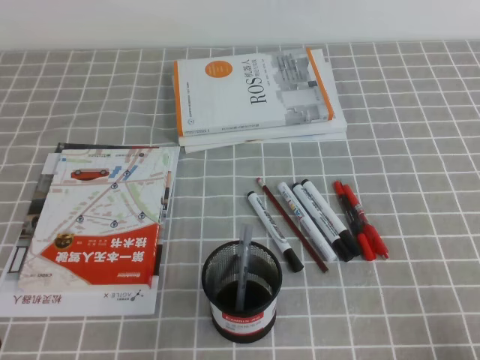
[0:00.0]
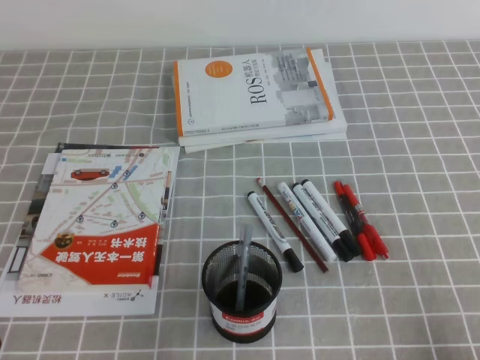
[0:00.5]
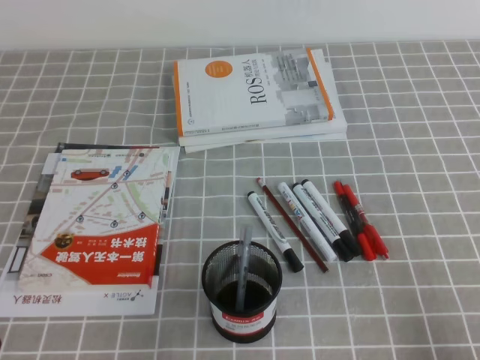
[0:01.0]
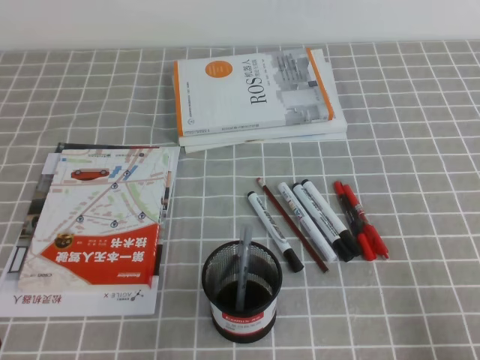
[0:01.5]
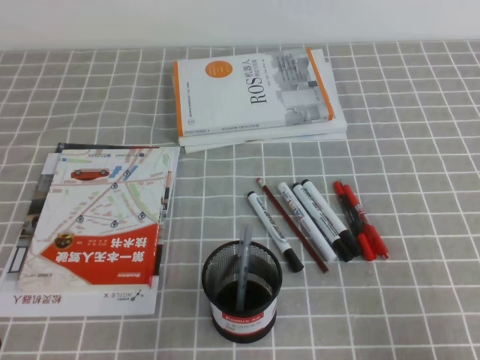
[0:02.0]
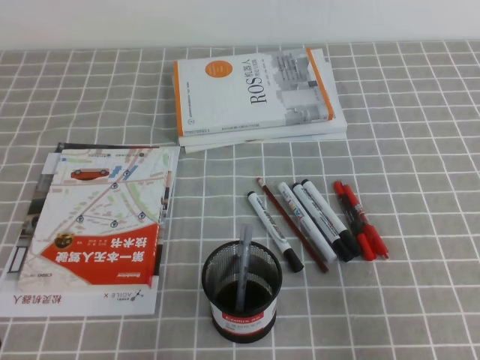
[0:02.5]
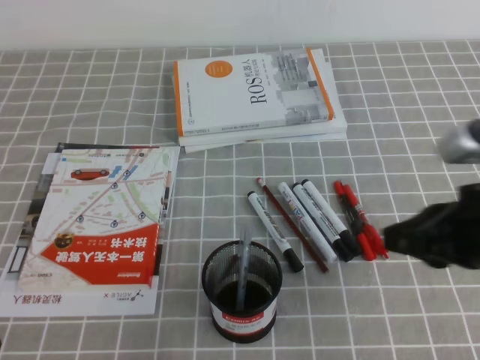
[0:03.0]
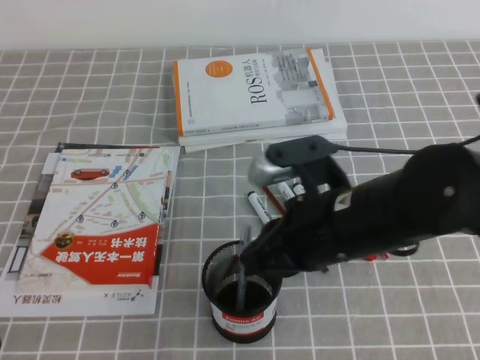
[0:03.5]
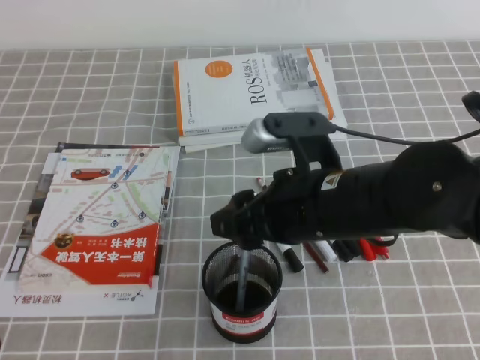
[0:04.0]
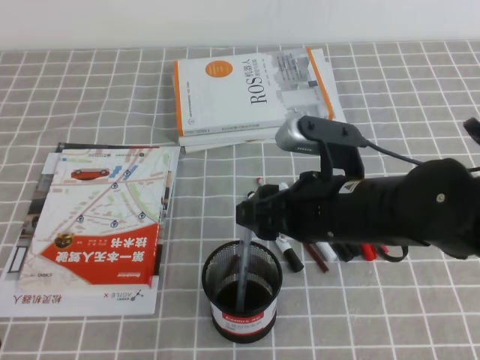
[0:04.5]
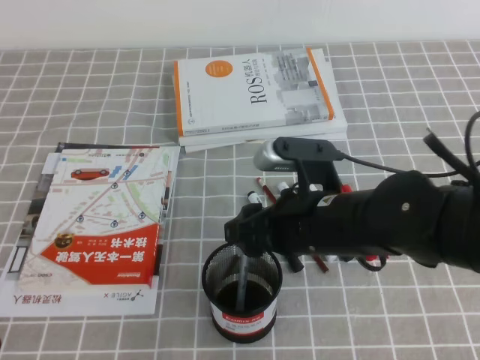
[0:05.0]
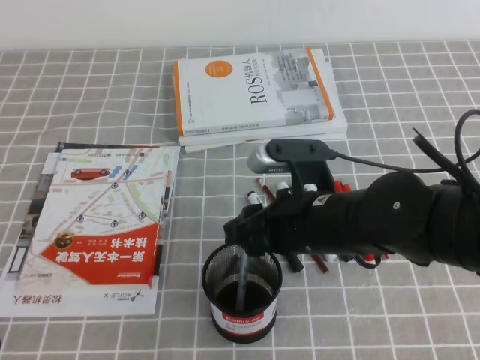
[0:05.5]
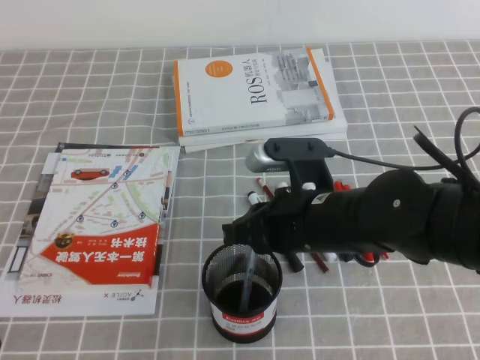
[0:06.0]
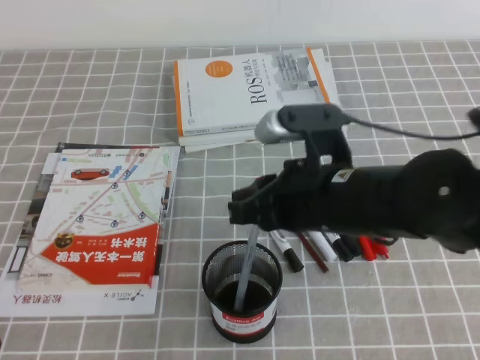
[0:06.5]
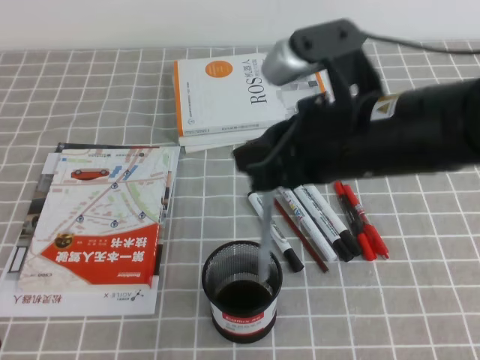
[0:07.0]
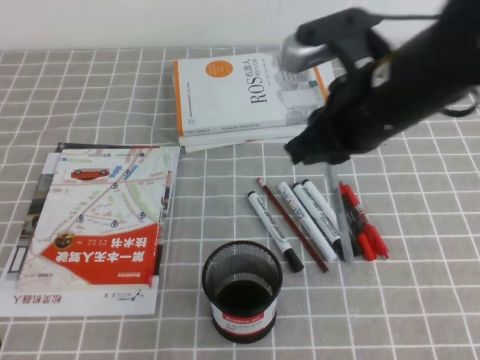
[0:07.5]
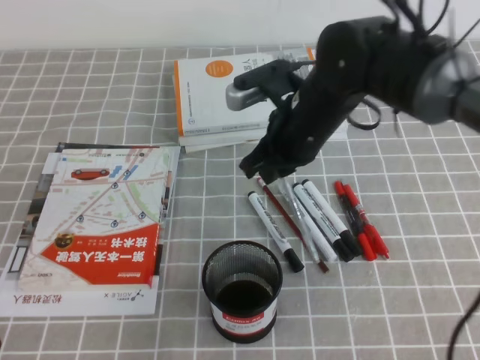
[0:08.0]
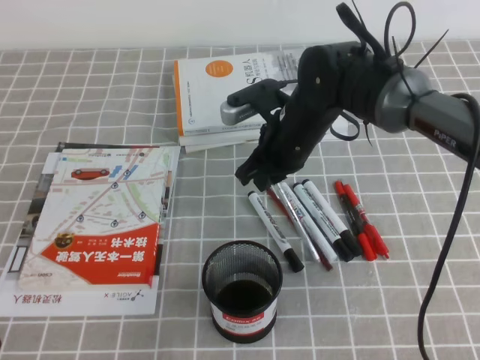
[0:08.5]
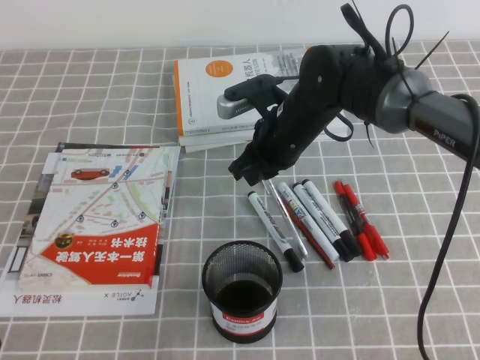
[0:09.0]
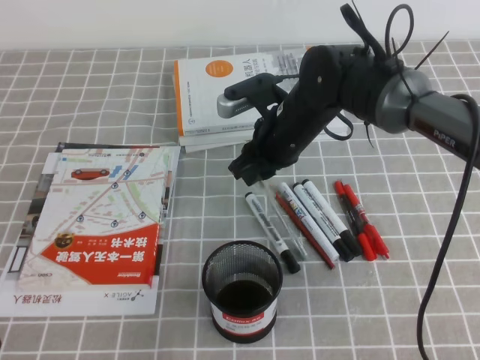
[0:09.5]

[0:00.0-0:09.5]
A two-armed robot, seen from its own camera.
0:02.0 to 0:04.0: The right gripper shifts some 30 cm to the left and forward, and opens.
0:04.0 to 0:05.5: The right gripper ends up roughly 5 cm from where it was.
0:05.5 to 0:07.5: The right gripper travels upward by some 10 cm, and closes its fingers.
0:07.5 to 0:09.5: The right gripper is displaced downward, forward and to the left by some 20 cm.

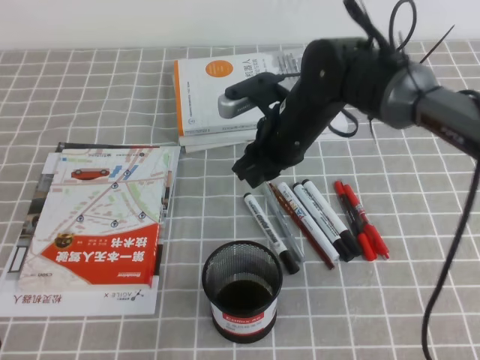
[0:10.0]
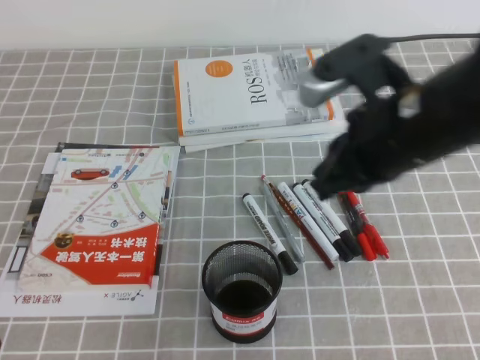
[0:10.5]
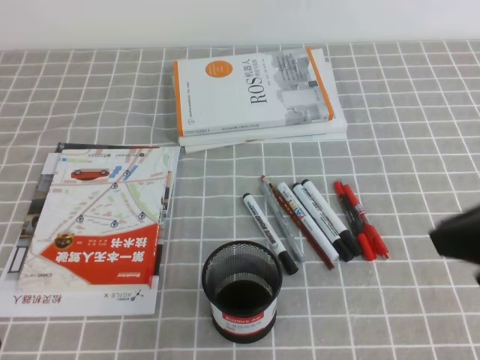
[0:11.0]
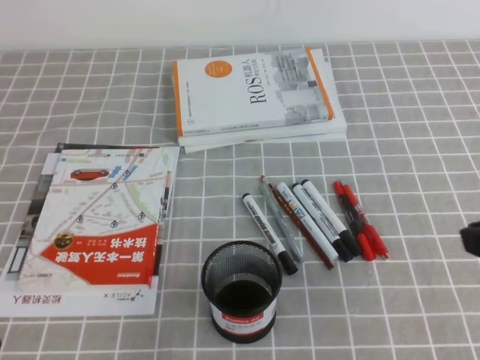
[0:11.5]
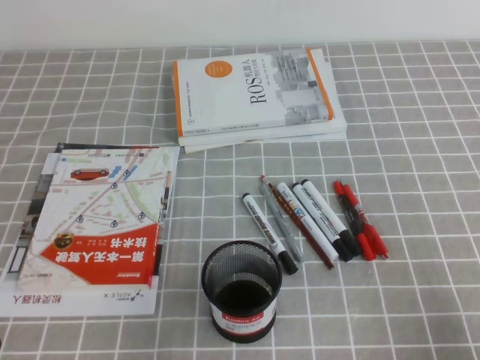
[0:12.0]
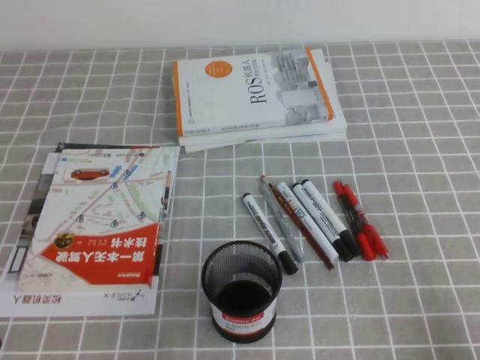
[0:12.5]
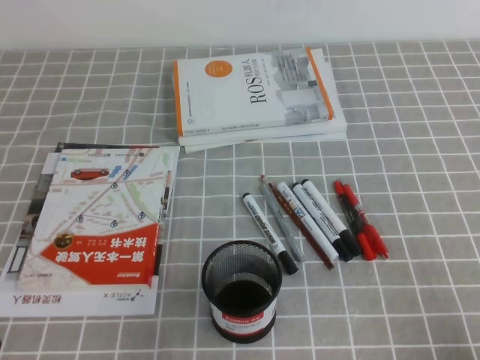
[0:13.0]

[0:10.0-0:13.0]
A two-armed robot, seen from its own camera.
Step, 0:10.0 to 0:13.0: Pick up the pen from the pen holder.
0:10.0 to 0:11.5: The right gripper moves backward and to the right, about 35 cm, and closes.
0:11.5 to 0:13.0: The right gripper moves downward, backward and to the right, about 20 cm.
